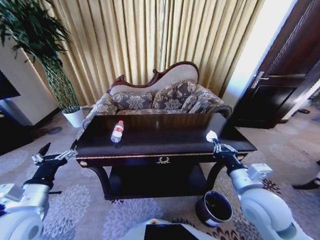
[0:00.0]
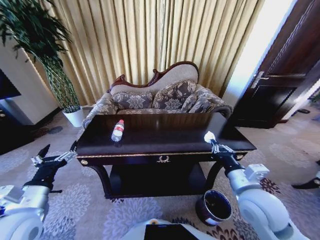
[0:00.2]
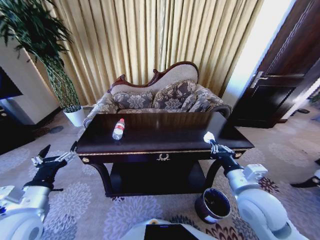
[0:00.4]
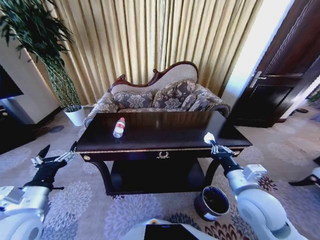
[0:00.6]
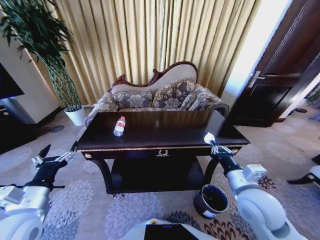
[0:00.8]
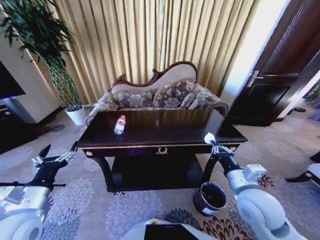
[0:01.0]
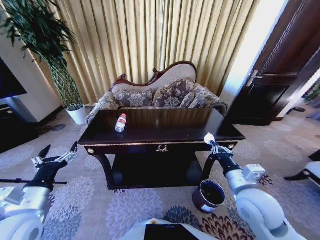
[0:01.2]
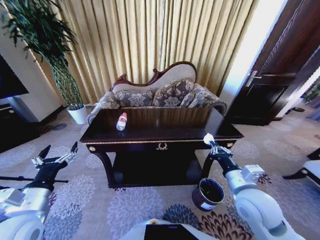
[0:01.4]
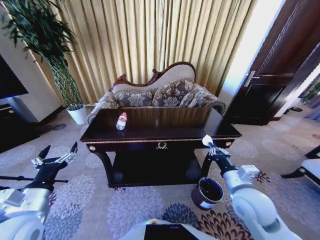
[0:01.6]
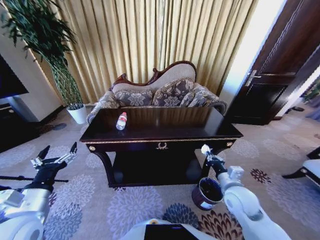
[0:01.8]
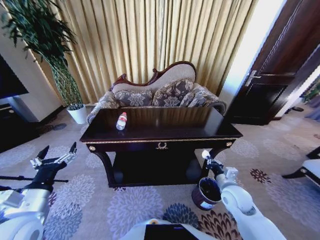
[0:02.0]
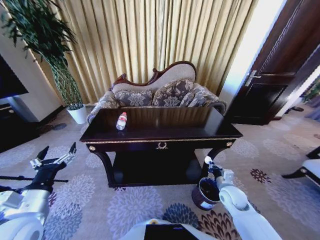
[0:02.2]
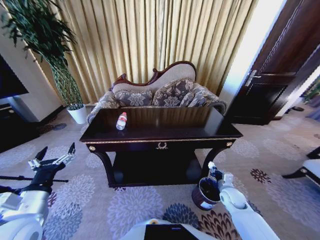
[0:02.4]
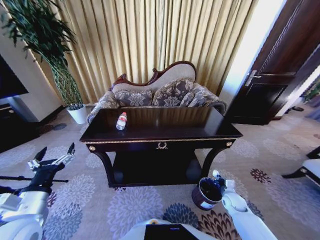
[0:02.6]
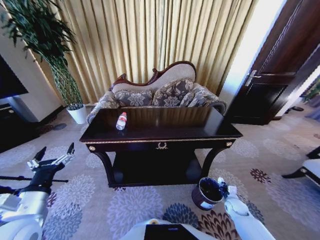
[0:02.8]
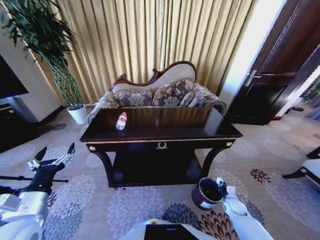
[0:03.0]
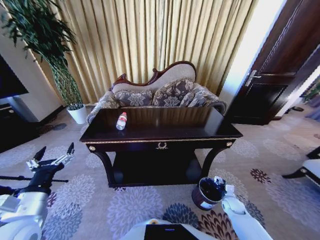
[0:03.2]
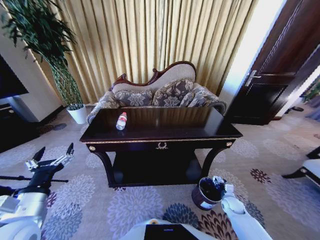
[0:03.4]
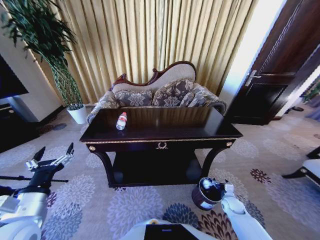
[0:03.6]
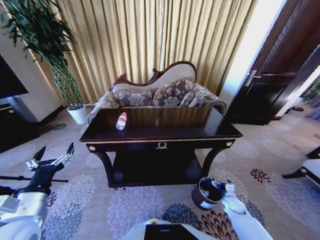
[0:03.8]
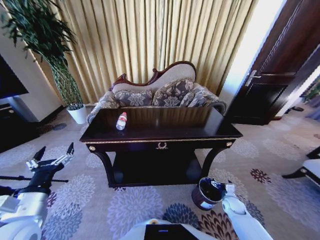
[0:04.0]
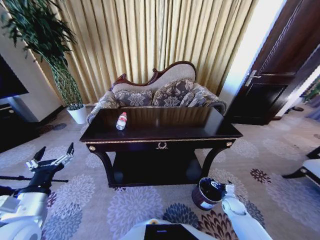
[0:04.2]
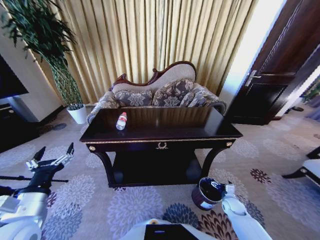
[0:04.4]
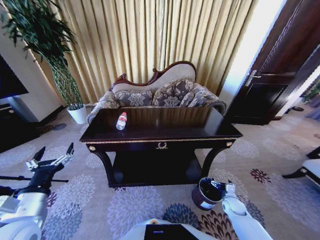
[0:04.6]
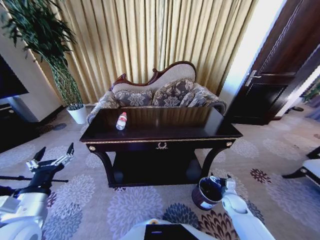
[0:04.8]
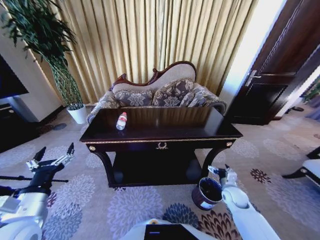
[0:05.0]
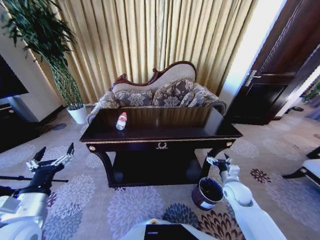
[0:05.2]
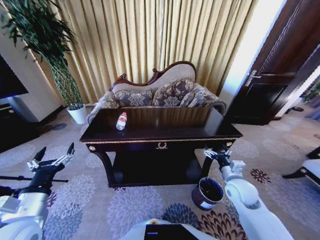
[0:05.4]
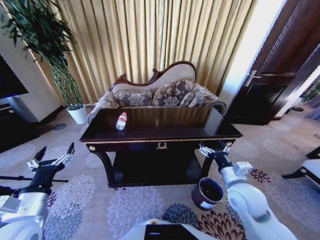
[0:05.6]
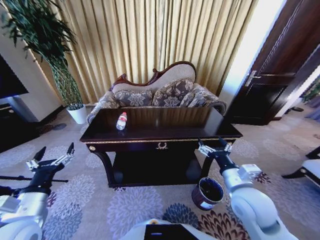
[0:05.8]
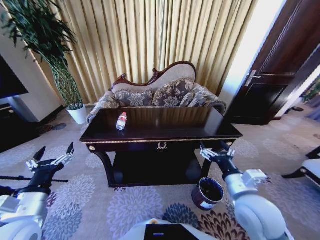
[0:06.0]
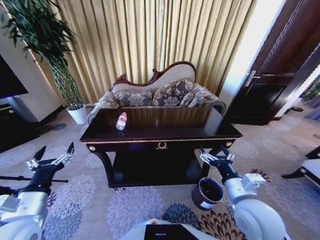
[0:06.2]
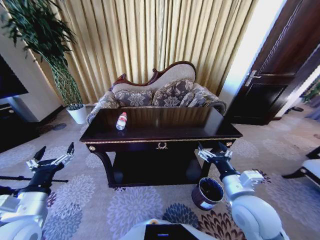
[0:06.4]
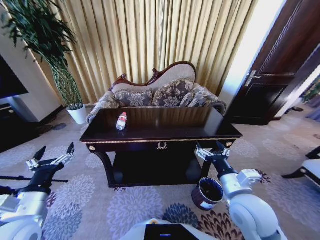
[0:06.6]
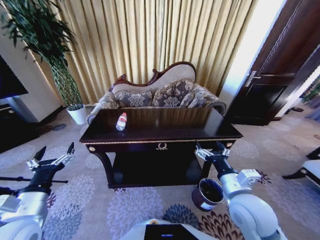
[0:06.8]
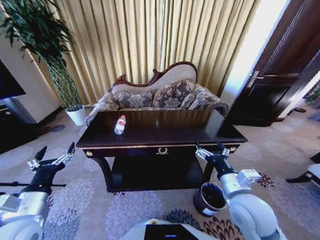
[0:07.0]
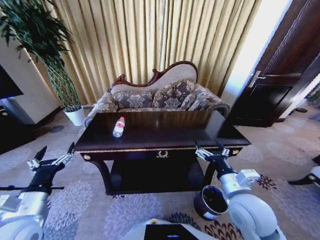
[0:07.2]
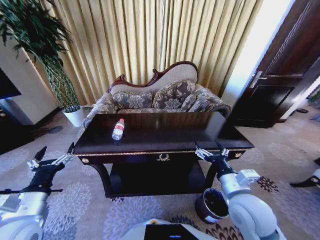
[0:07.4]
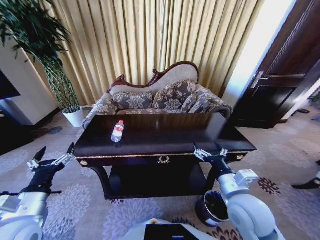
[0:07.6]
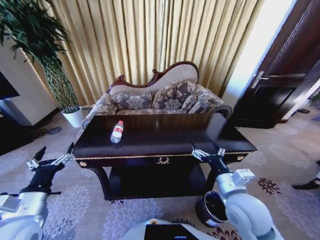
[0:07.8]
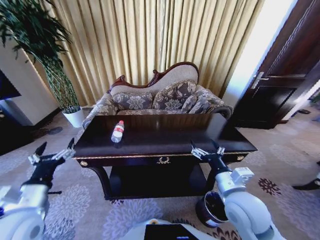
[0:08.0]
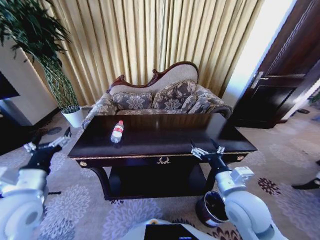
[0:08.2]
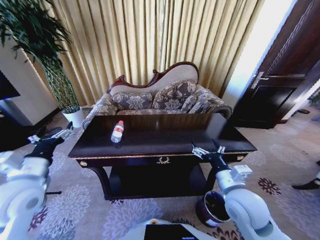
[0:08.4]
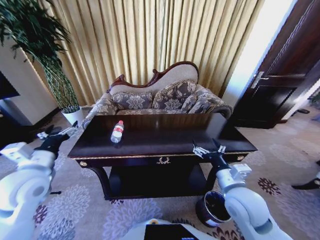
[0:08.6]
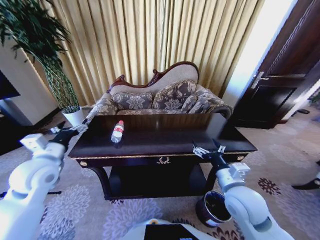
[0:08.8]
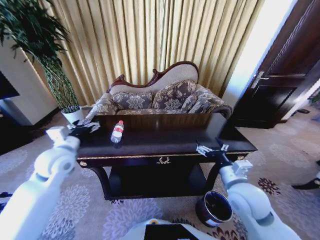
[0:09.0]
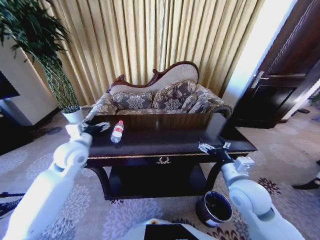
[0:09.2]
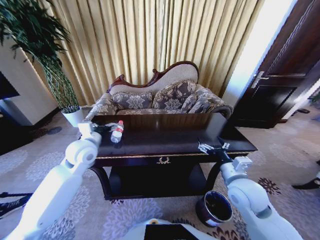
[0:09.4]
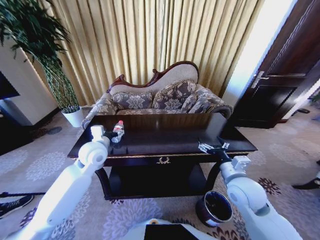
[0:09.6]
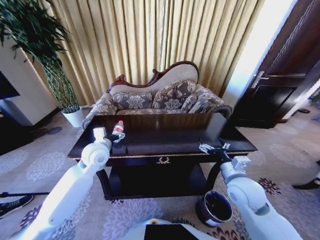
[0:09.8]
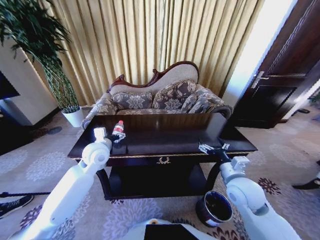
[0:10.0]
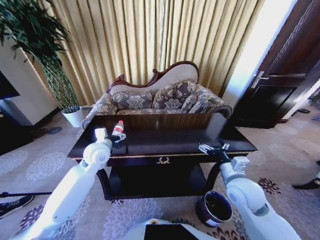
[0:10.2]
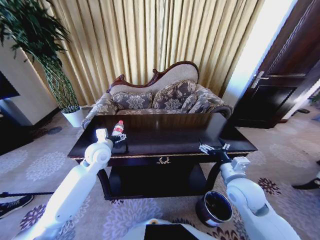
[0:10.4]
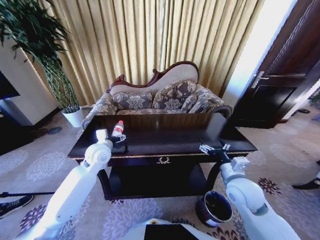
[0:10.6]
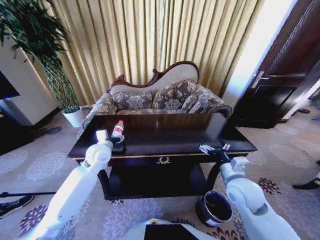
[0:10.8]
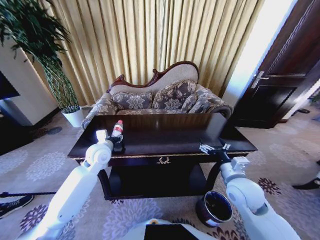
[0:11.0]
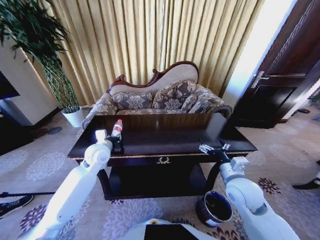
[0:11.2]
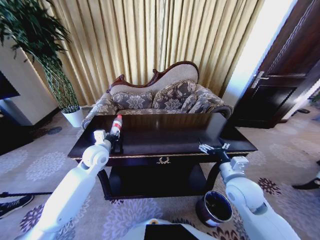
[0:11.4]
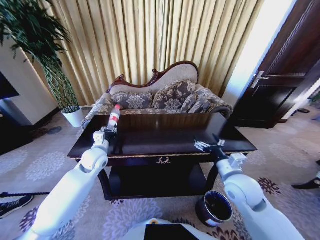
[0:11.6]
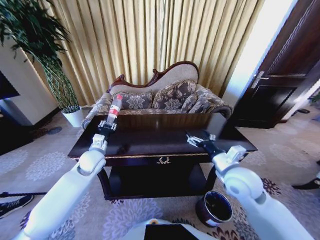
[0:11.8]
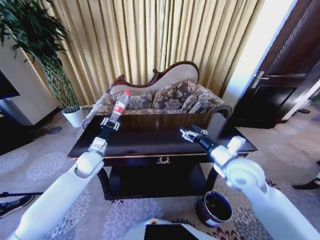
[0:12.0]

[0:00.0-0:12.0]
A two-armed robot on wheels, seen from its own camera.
Task of the whole recording: Move to the front of the table and place the trash on the table into the trash bin.
0:01.6 to 0:03.0: The right gripper travels downward and to the right by approximately 35 cm.
0:04.4 to 0:06.0: The right gripper moves upward and to the left, approximately 35 cm.
0:07.6 to 0:09.0: The left gripper is displaced forward by about 20 cm.
0:09.0 to 0:10.4: The left gripper goes about 10 cm to the right, forward and downward.
0:10.4 to 0:12.0: The right gripper shifts some 5 cm upward. Meanwhile the left gripper ends up roughly 5 cm from where it was, and closes.

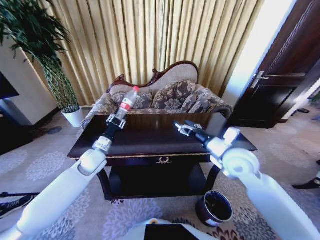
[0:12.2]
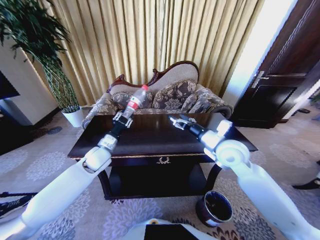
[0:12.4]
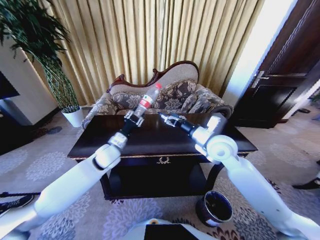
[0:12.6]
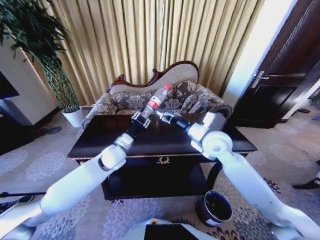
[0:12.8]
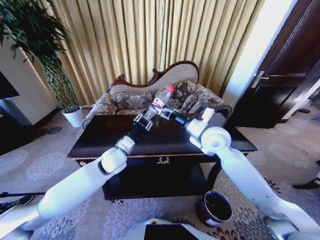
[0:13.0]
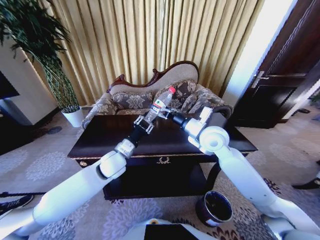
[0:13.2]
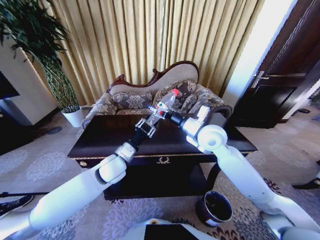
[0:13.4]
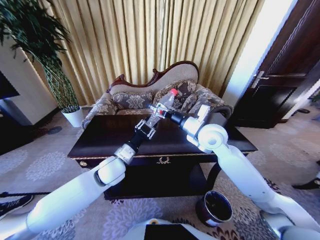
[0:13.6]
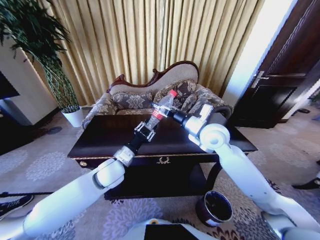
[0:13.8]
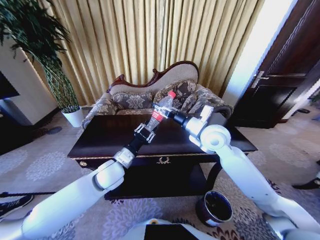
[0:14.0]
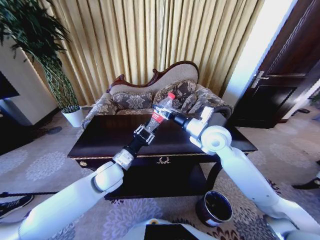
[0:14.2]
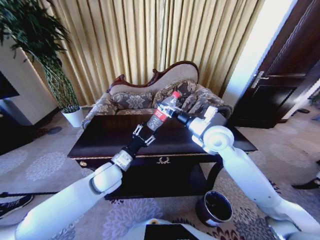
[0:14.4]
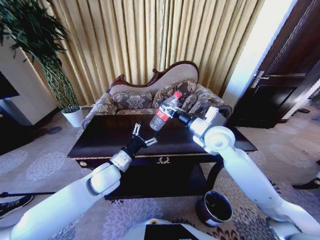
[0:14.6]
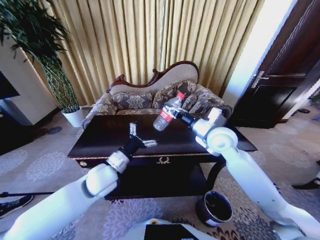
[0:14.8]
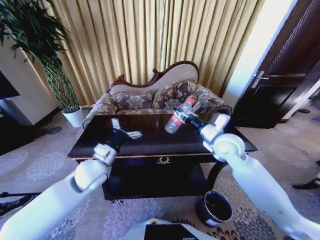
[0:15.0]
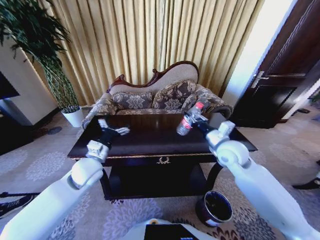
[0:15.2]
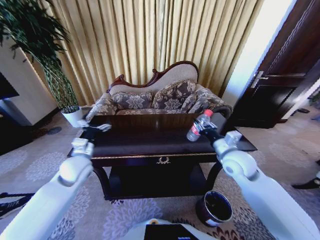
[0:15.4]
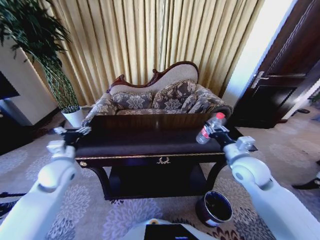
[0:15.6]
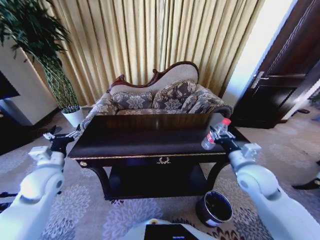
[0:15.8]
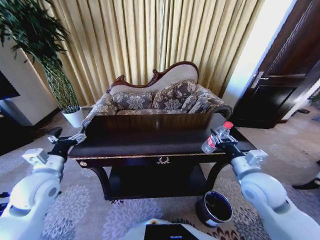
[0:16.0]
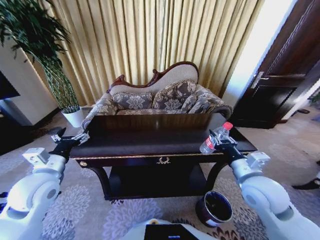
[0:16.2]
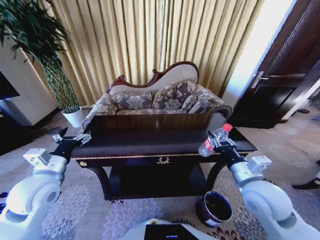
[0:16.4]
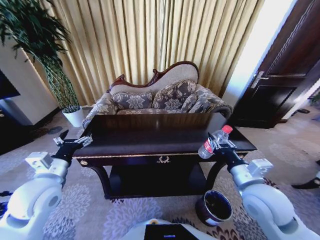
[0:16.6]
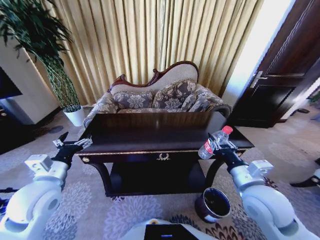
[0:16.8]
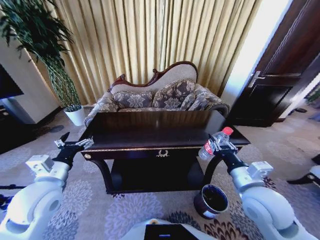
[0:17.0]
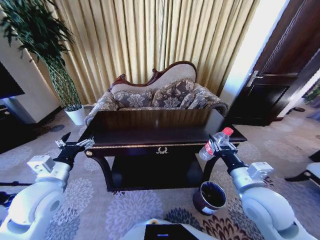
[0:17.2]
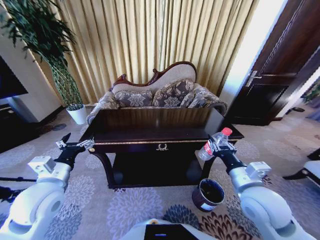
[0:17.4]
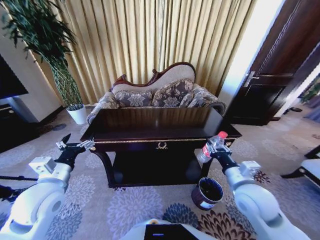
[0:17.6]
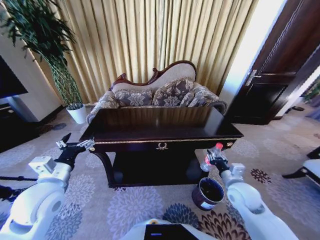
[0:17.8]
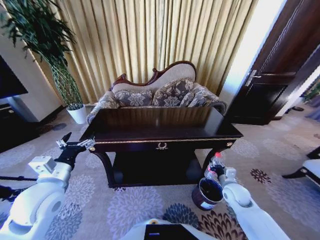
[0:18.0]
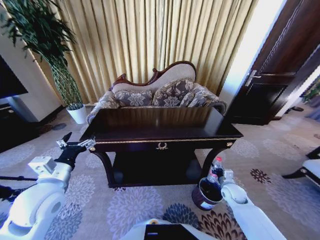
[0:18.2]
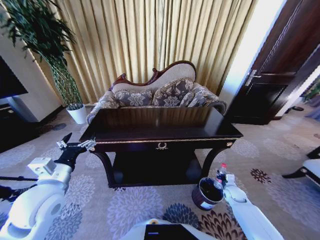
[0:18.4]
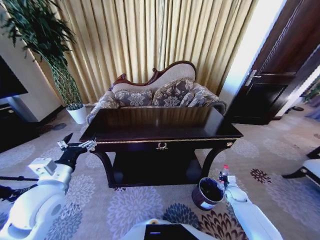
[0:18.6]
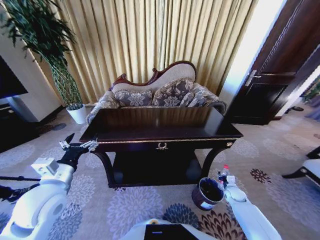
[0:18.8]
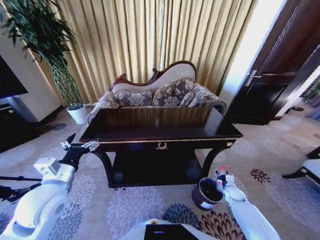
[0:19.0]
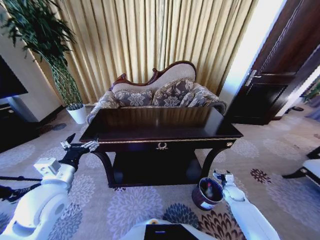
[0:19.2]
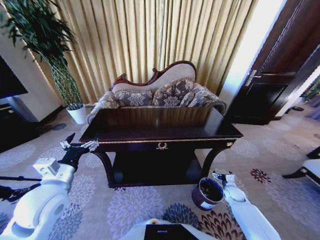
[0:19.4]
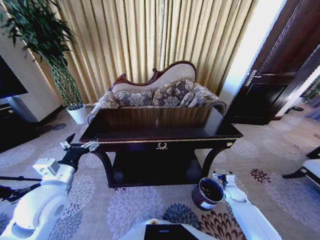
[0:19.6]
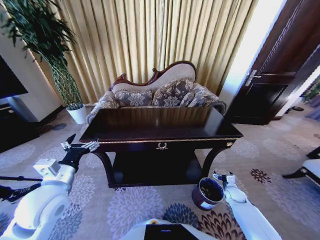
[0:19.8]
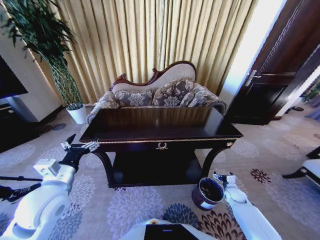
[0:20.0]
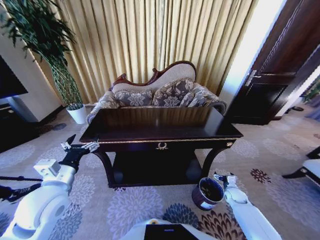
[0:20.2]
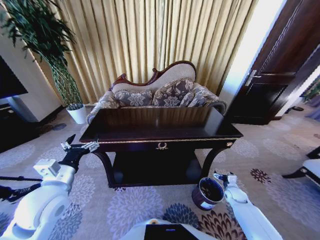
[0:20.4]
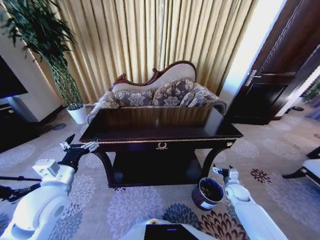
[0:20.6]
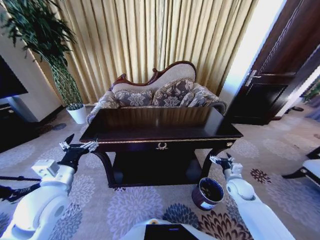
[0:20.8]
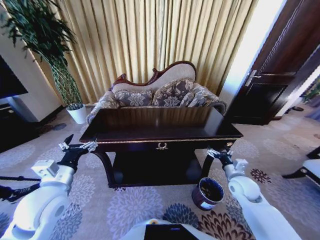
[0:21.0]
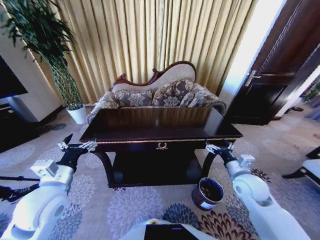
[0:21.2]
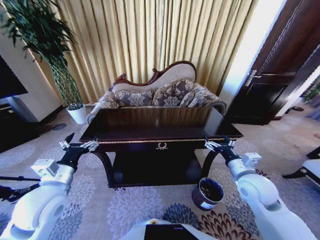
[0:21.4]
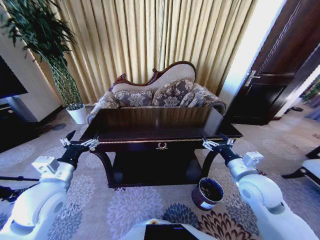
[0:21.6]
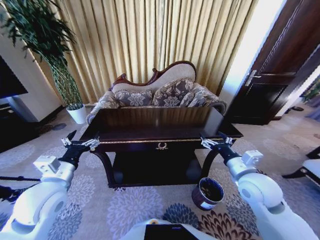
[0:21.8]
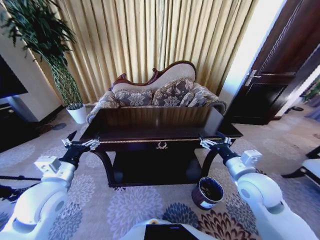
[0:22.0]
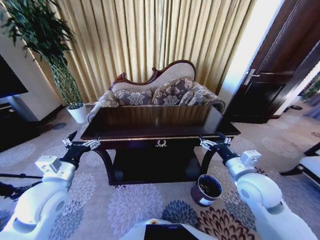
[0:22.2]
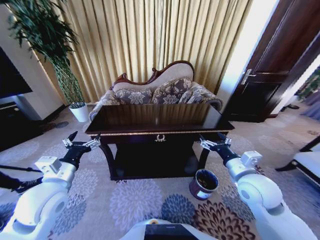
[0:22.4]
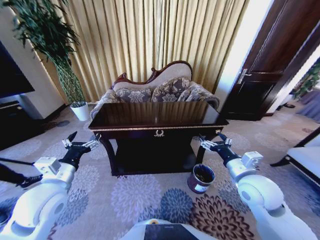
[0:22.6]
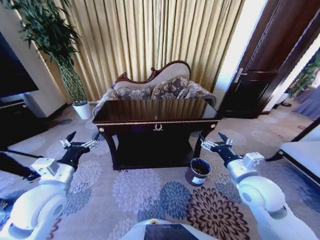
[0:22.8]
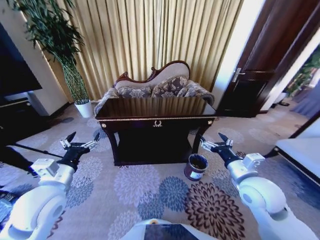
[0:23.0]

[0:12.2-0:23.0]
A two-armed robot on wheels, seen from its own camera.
Task of the whole recording: Move to the front of the table and place the trash on the table into the trash bin.
0:12.2 to 0:13.8: The left gripper goes about 10 cm to the right and backward. The right gripper goes approximately 10 cm forward and to the left.
0:13.8 to 0:15.2: The left gripper shifts some 10 cm to the left, and opens. Meanwhile the right gripper shifts about 10 cm to the right and downward, and closes up.
0:15.2 to 0:16.8: The left gripper moves backward and to the left, approximately 10 cm, while the right gripper is displaced backward by some 15 cm.
0:16.8 to 0:18.4: The right gripper heads downward and to the right, covering roughly 35 cm.
0:18.4 to 0:20.0: The right gripper opens up.
0:20.0 to 0:21.4: The right gripper moves upward and to the left, approximately 30 cm.
0:21.4 to 0:23.0: The right gripper moves approximately 5 cm.
